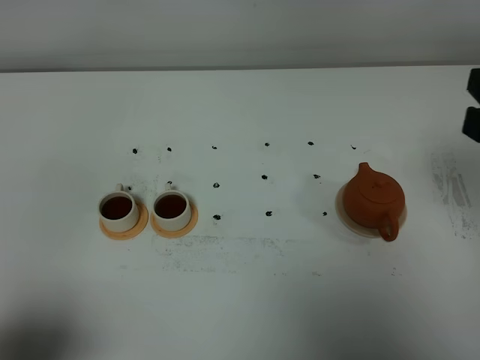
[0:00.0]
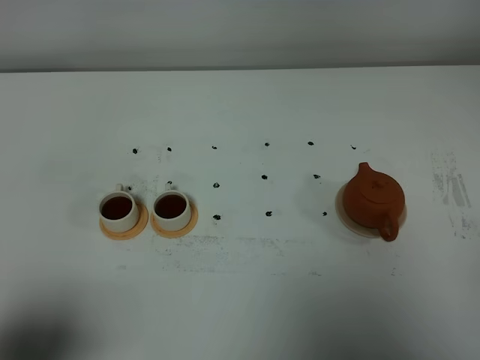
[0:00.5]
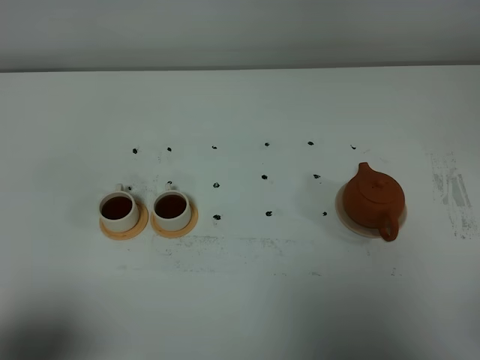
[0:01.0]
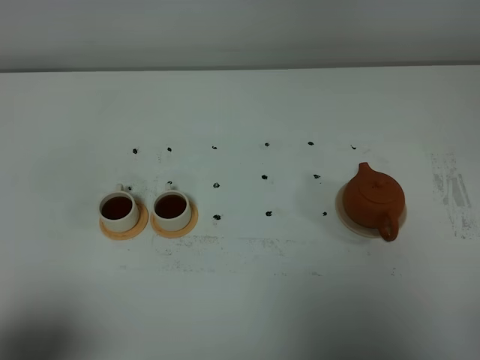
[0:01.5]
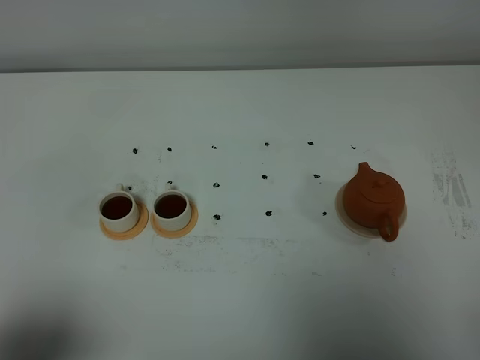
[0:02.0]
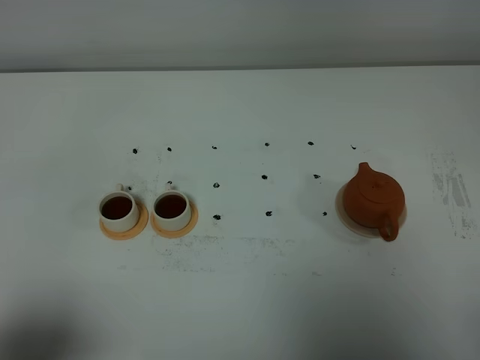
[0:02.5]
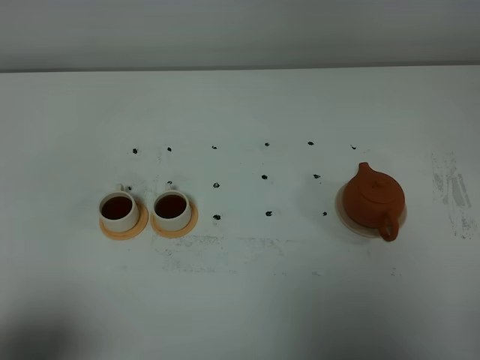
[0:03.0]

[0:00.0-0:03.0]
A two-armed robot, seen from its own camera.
Task of the whole recording: grasp the brown teapot and pour the tea into the two white teacups one by one, put the brown teapot back in its original place.
0:00.0 to 0:01.5: The right gripper goes about 20 cm backward and downward.
0:01.5 to 0:03.0: Both grippers stay about where they are.
